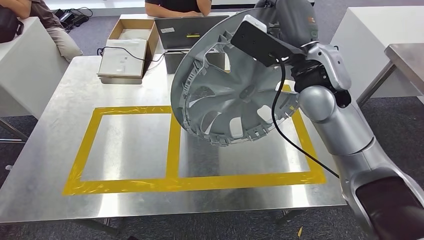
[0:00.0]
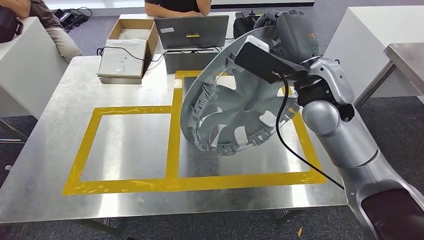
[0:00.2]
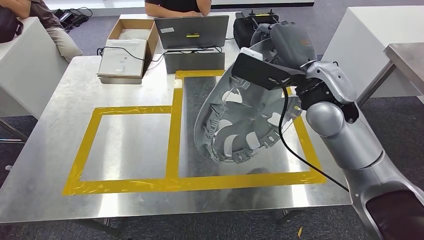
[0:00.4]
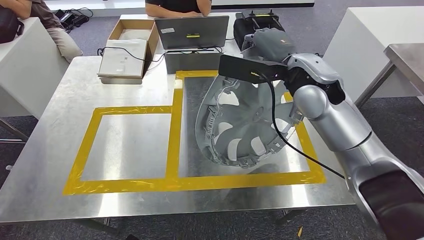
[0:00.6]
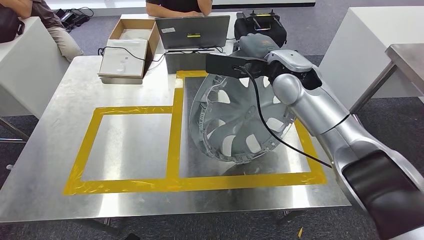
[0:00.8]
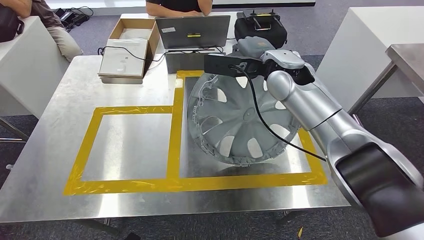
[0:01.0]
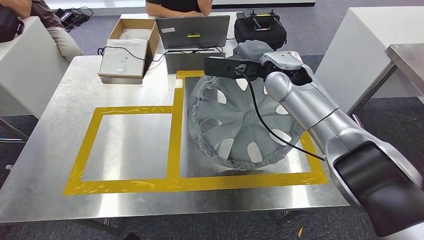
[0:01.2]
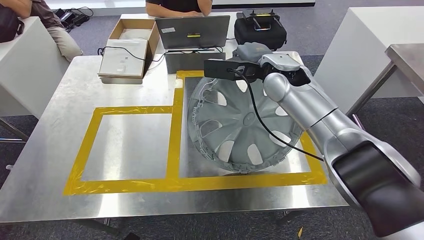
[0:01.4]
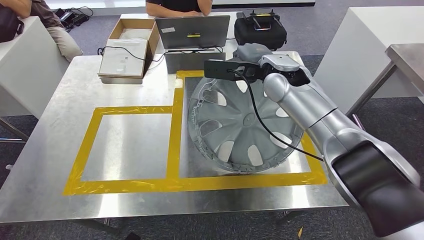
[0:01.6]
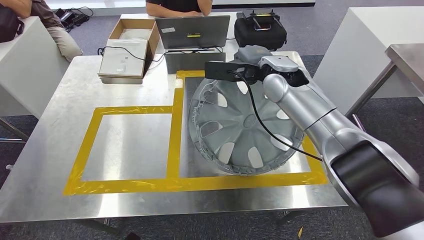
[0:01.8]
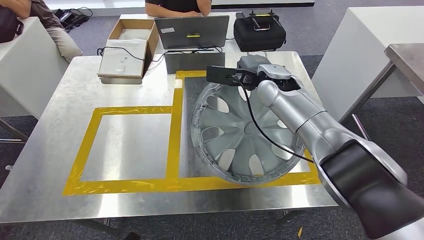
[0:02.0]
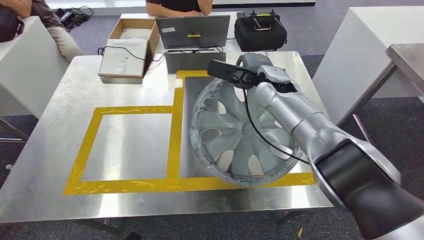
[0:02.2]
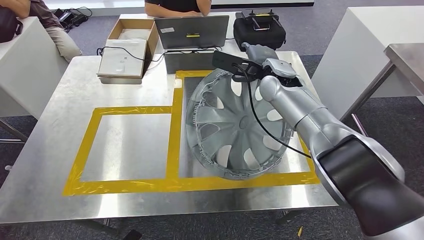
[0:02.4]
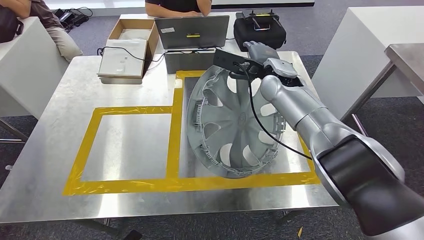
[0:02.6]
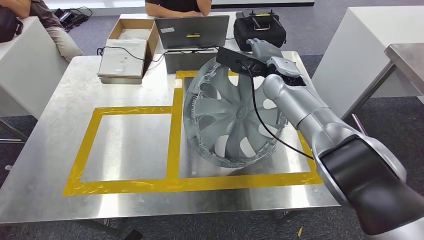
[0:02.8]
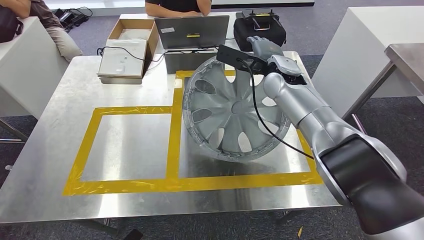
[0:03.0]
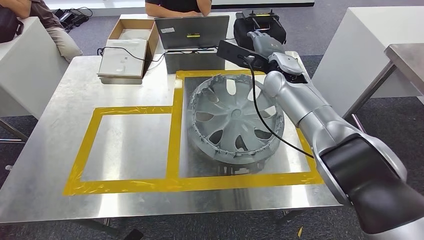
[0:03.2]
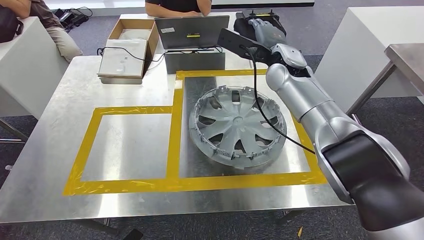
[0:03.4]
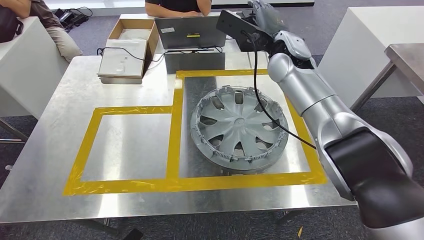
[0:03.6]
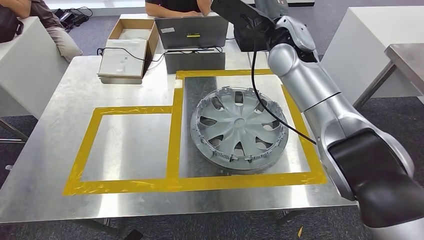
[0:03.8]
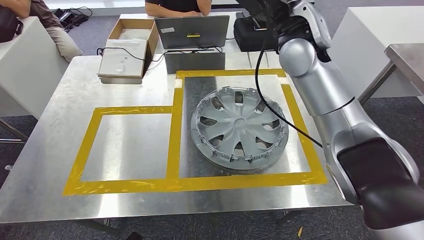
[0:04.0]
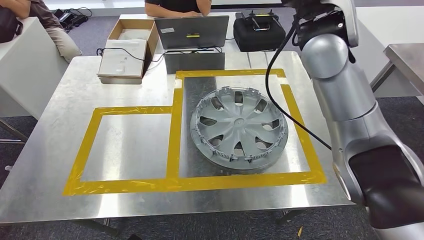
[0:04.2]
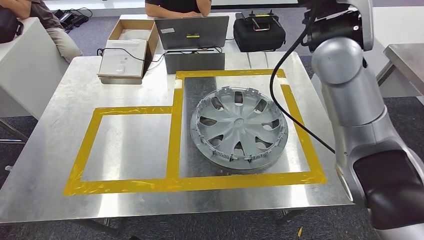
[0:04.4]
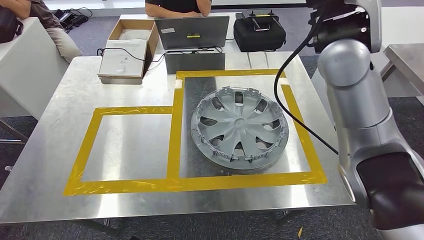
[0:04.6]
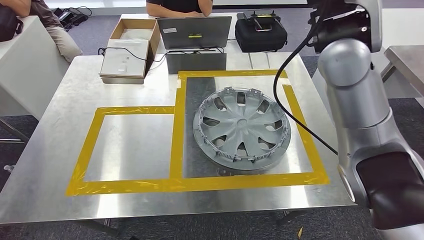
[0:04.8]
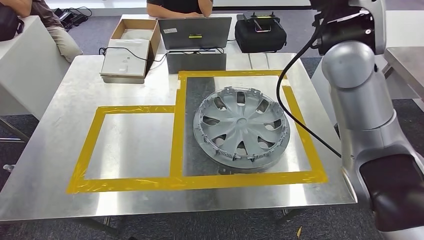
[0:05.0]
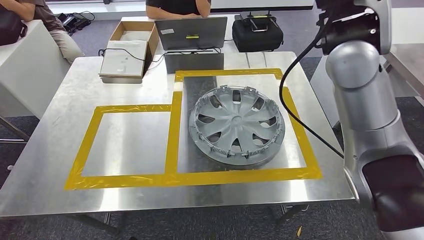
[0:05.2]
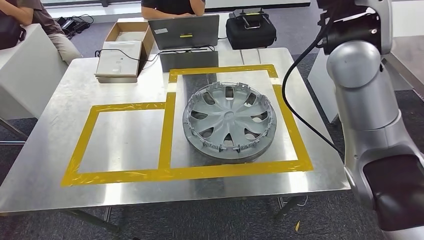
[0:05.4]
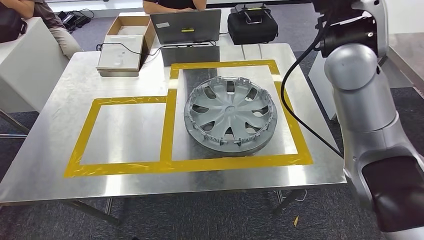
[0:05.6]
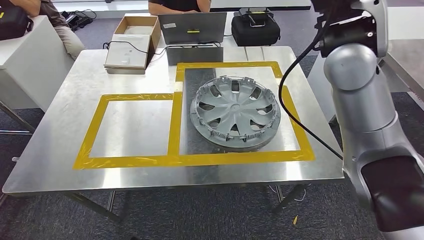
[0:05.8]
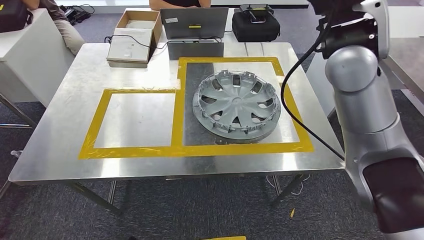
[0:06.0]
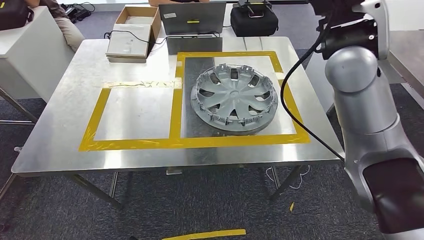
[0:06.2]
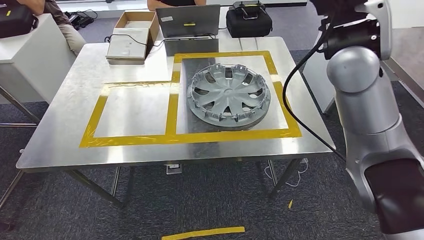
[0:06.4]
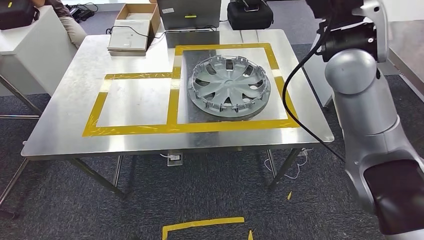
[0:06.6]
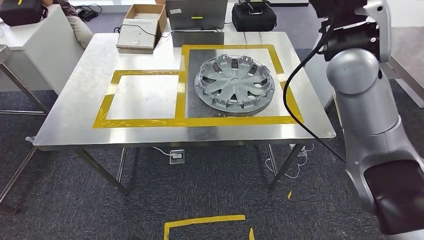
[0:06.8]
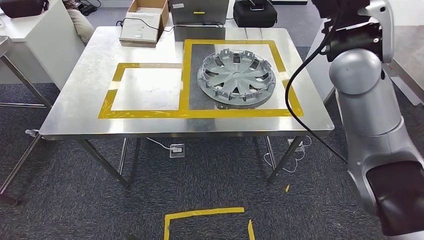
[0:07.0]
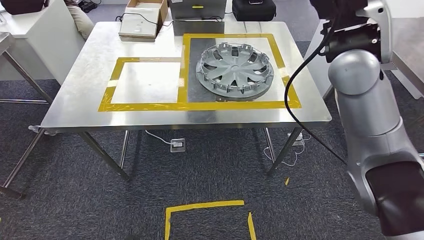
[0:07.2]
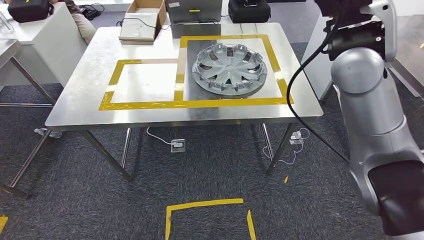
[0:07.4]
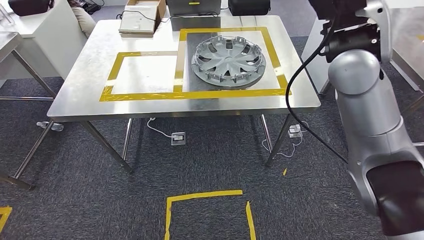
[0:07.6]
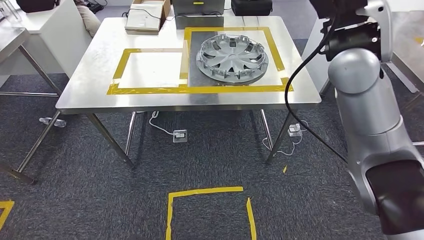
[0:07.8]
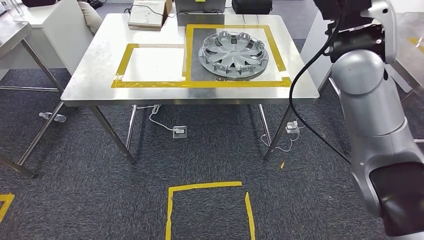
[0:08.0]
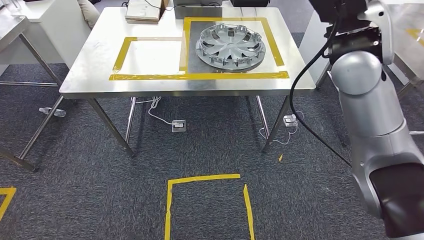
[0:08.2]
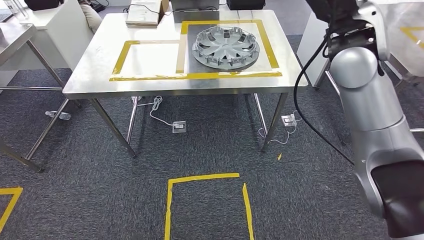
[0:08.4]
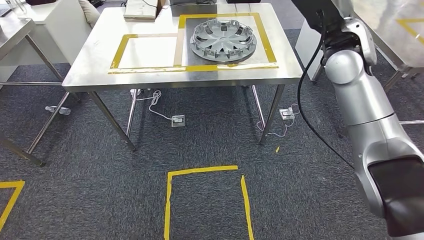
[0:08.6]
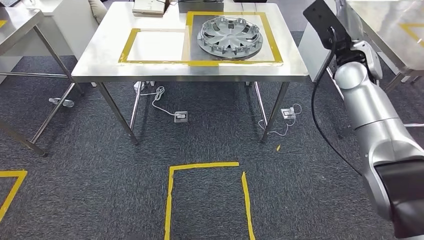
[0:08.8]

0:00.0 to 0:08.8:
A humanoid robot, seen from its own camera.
Step, 0:00.0 to 0:04.6: Insert the small parts into the corresponding slots on the workbench.
Step, 0:05.0 to 0:08.8: Return to the initial position at the workbench.
0:01.4 to 0:03.0: The hands make only small movements.
